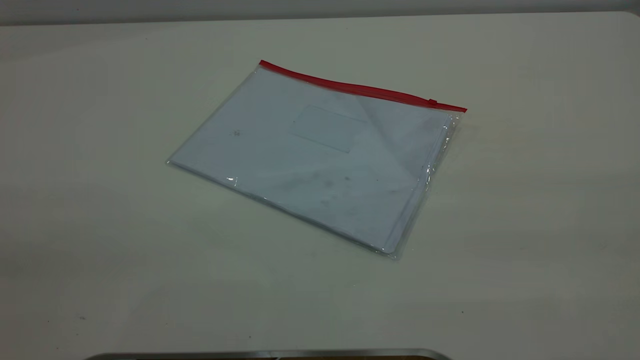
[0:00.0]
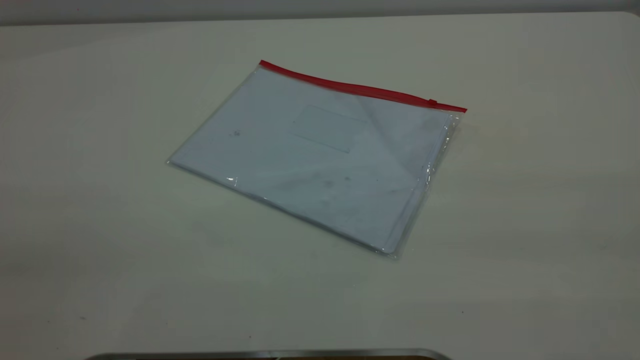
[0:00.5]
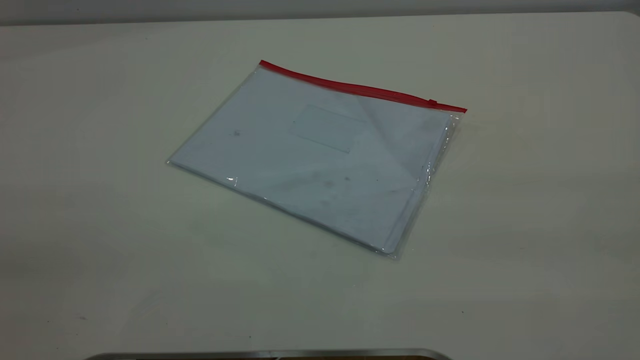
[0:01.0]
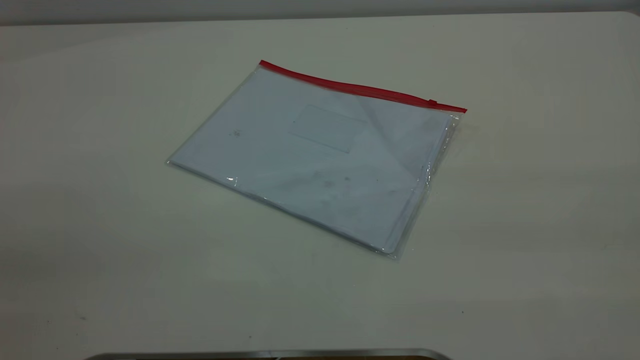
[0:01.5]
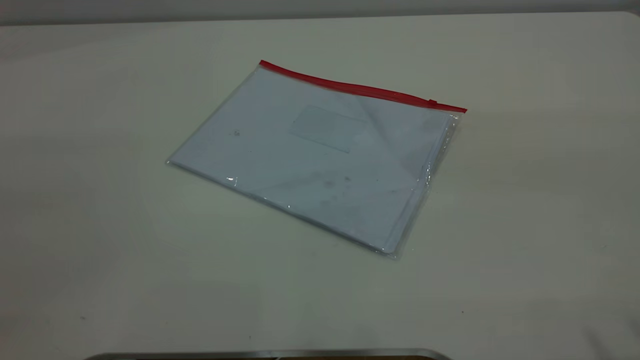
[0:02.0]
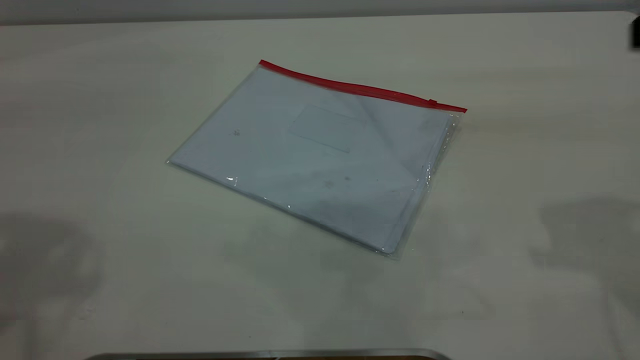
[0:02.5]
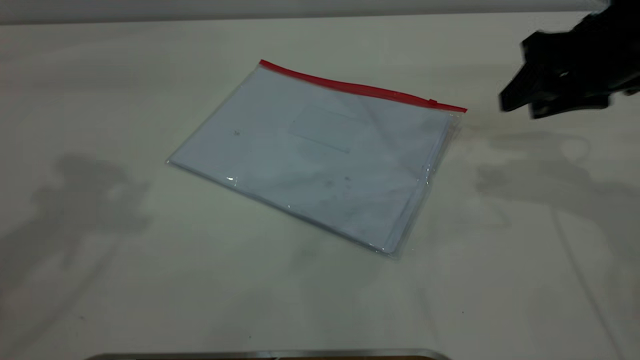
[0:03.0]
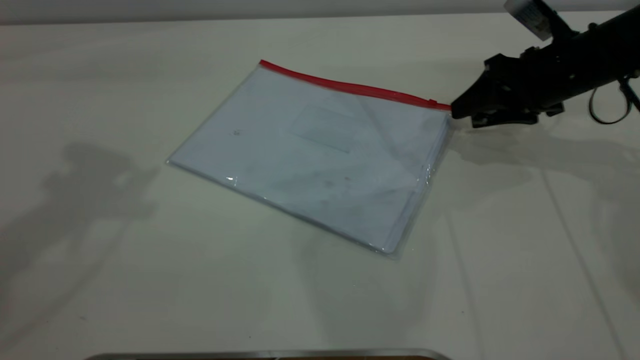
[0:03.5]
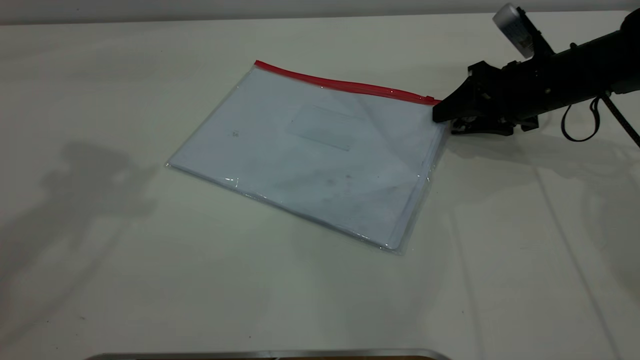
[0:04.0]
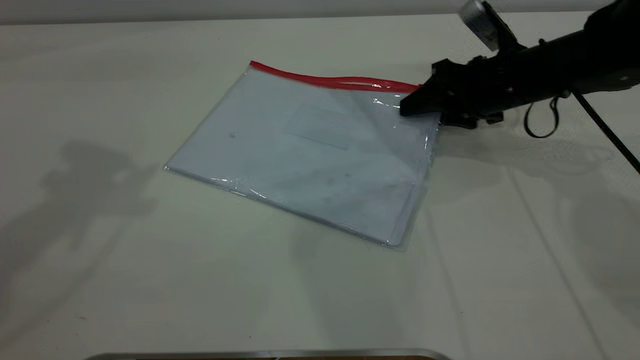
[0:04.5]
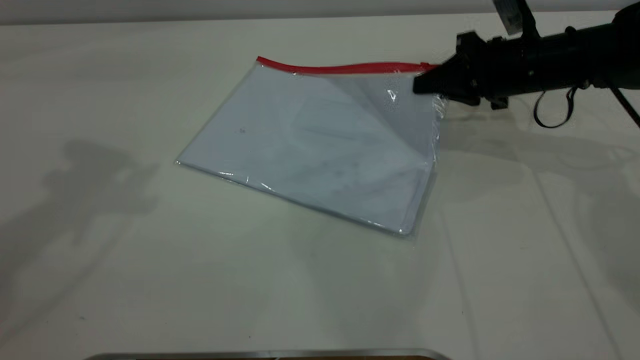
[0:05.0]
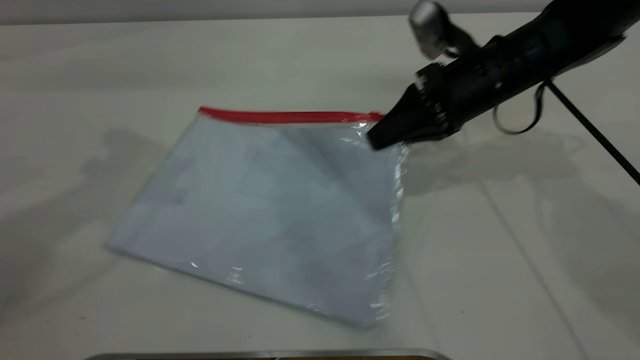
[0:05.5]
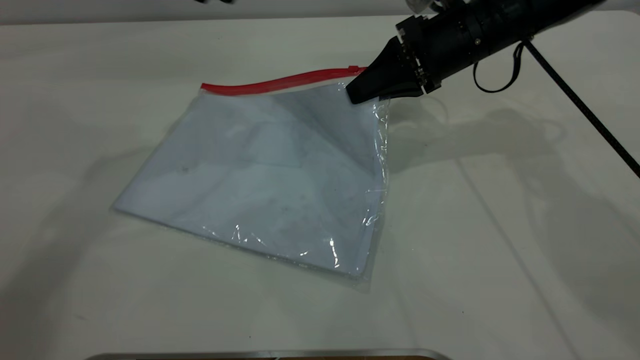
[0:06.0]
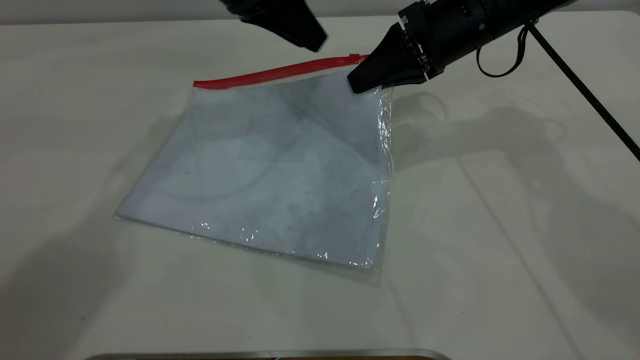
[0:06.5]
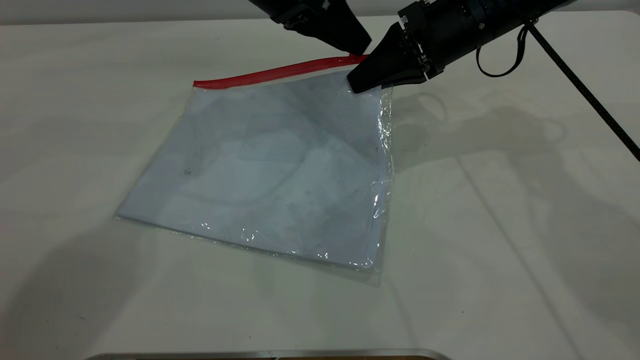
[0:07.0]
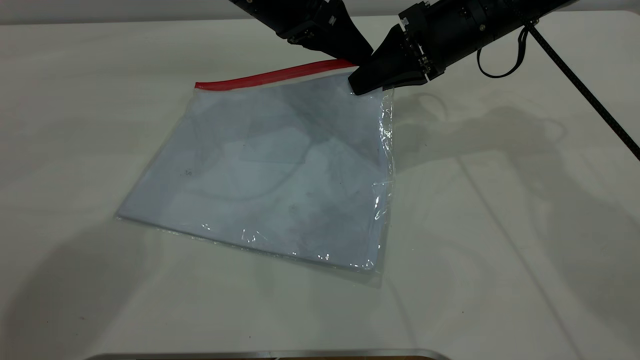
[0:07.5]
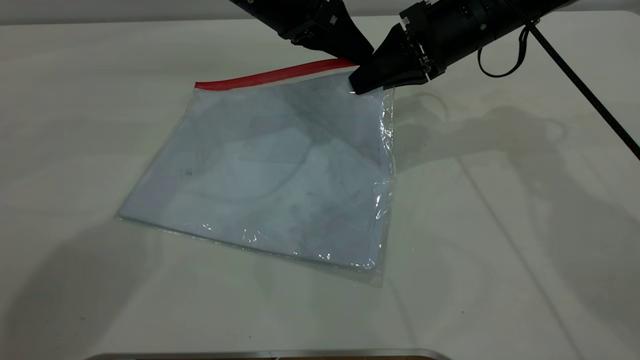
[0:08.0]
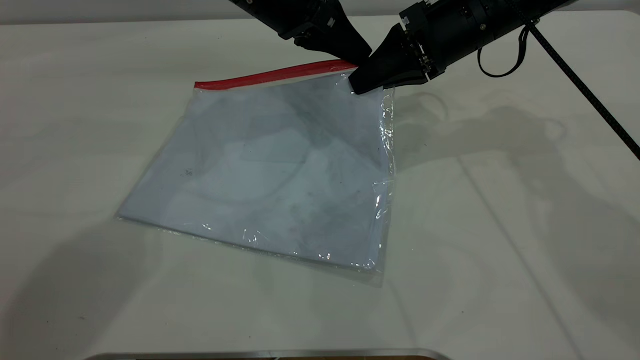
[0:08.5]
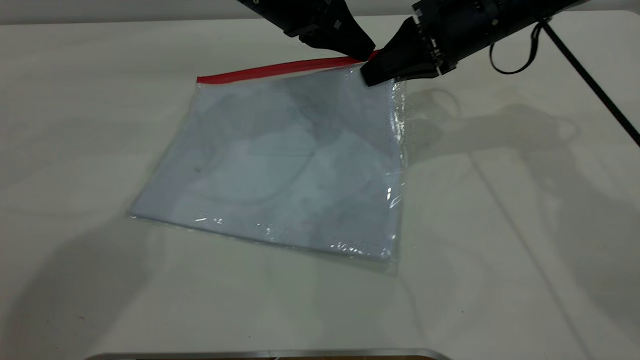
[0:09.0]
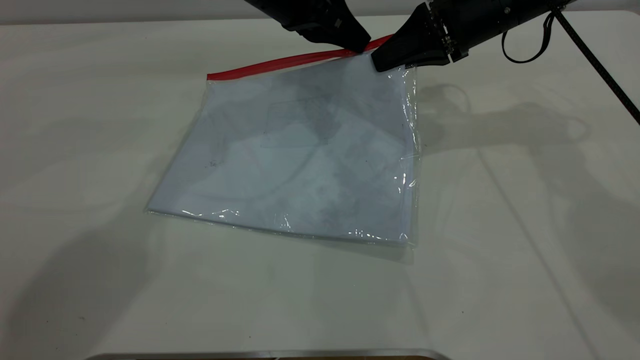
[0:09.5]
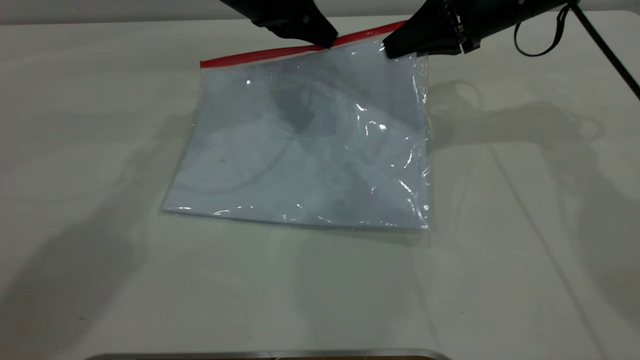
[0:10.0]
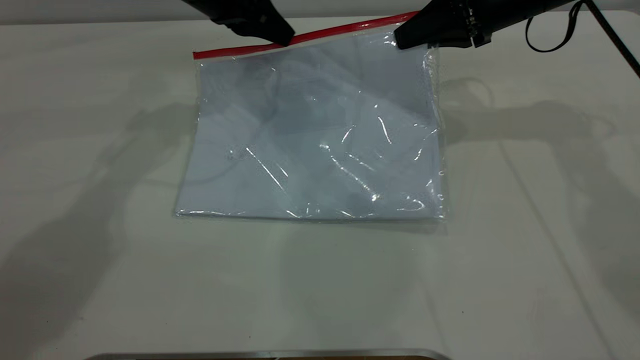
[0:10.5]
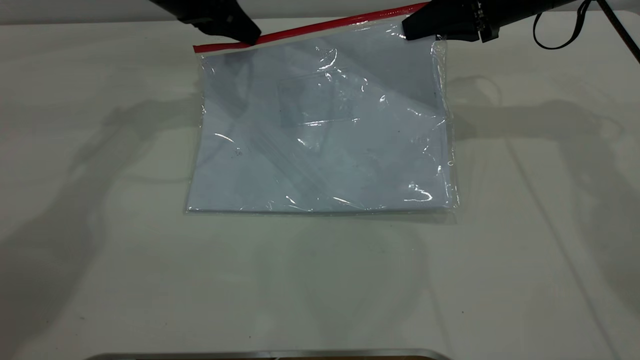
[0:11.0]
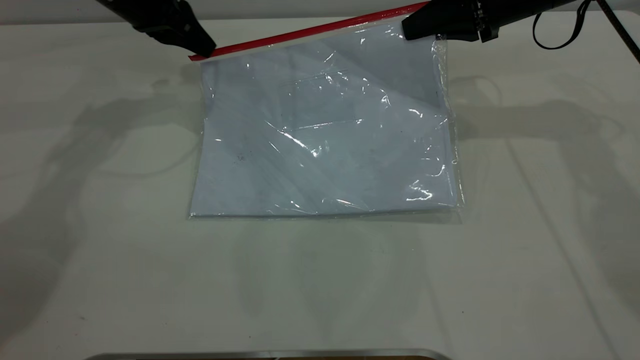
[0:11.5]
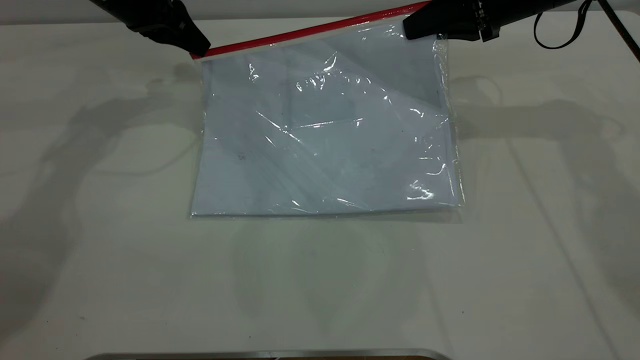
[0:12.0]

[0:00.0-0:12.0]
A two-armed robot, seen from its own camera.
Step, 0:00.0 to 0:06.0: Pick up the transparent plastic bag with the right gripper.
0:02.0 to 0:04.0: The right gripper heads forward and downward, covering about 50 cm.
0:04.0 to 0:06.0: The right gripper shifts roughly 10 cm to the left and upward, and closes its fingers, while the left gripper is displaced downward, to the right and forward by roughly 20 cm.
0:06.0 to 0:08.0: The left gripper is displaced to the right and downward by about 15 cm, and closes up.
0:08.0 to 0:10.0: The left gripper closes; the right gripper moves about 5 cm.
0:10.0 to 0:12.0: The left gripper is displaced to the left by roughly 15 cm.

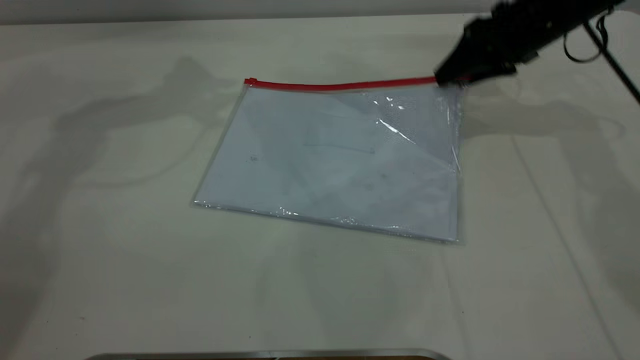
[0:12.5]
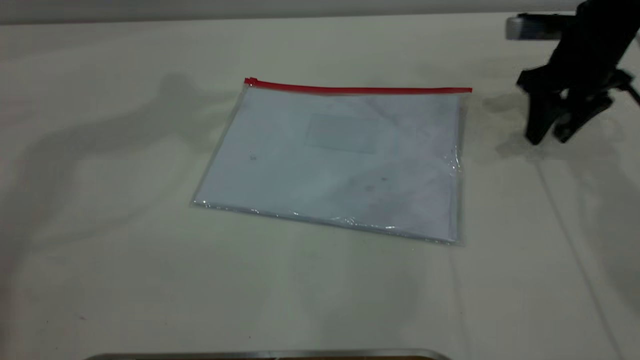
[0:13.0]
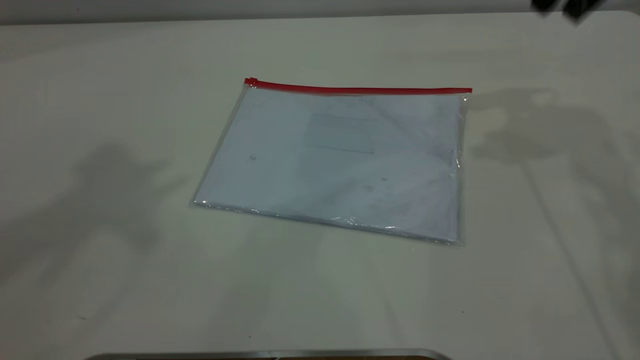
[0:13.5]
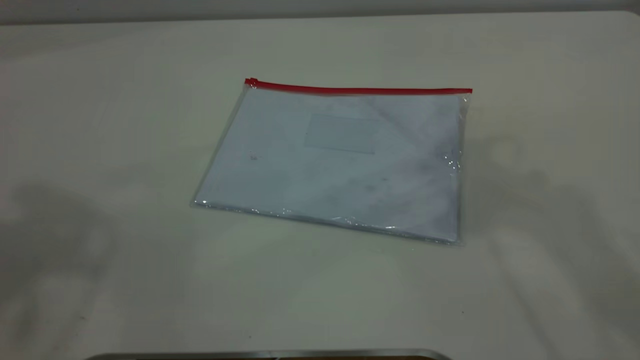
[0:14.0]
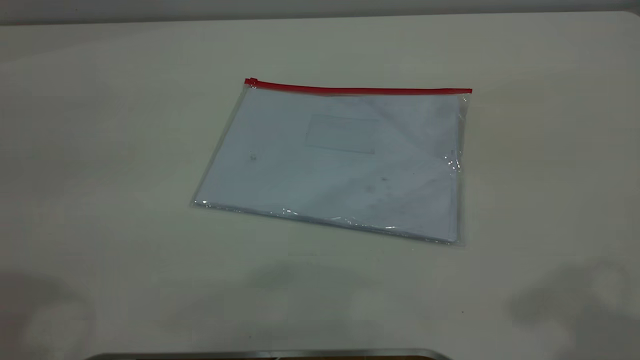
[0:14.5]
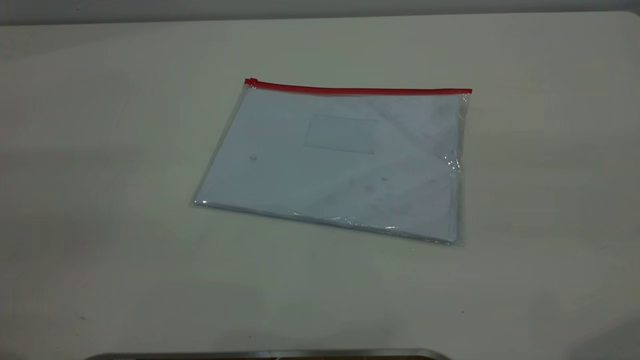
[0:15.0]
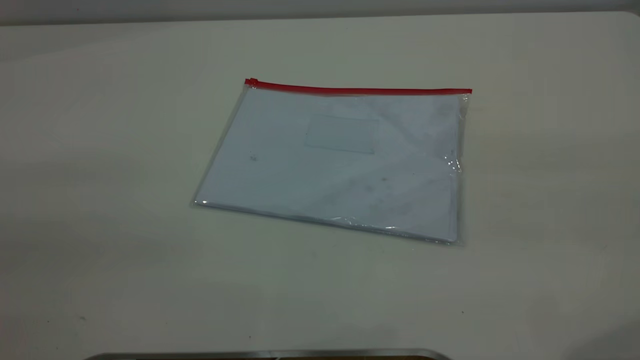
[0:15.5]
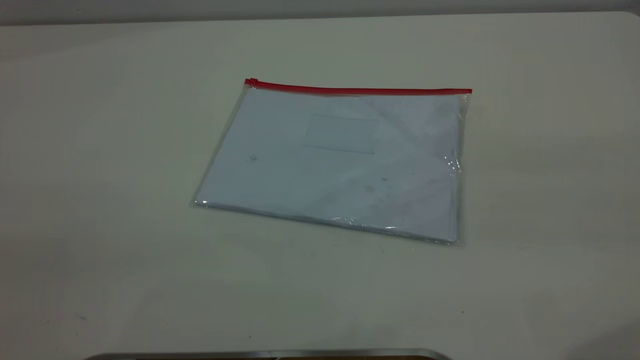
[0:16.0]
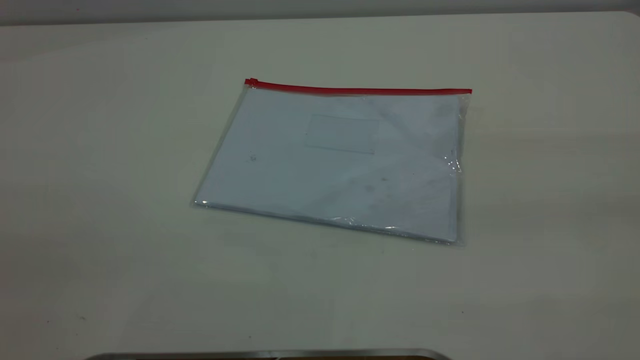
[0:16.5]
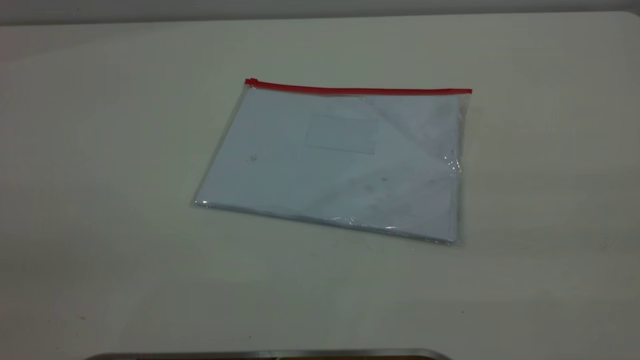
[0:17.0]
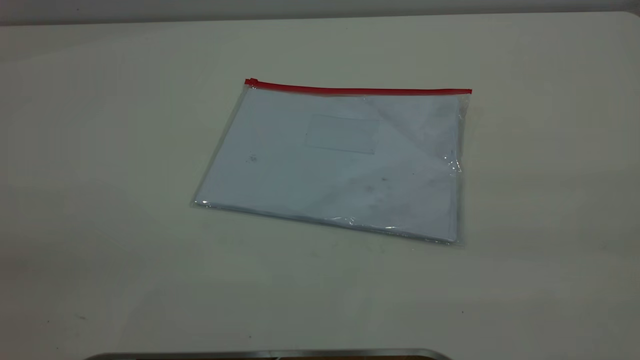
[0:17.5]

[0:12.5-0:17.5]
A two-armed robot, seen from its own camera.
0:12.5 to 0:15.0: The left gripper travels backward by roughly 40 cm, while the right gripper moves backward and upward, roughly 40 cm.

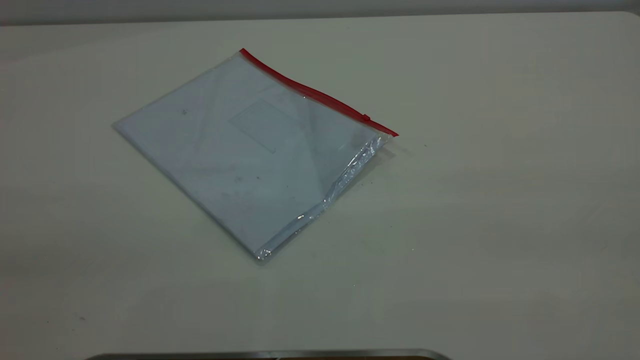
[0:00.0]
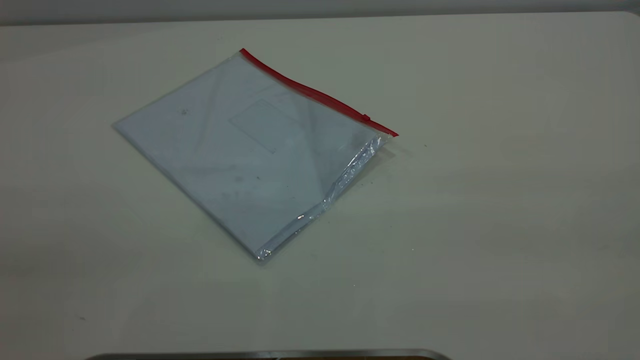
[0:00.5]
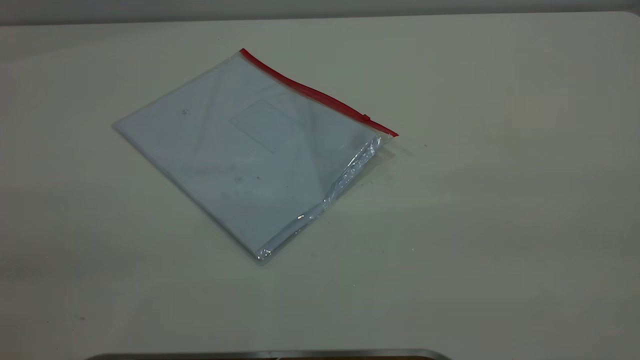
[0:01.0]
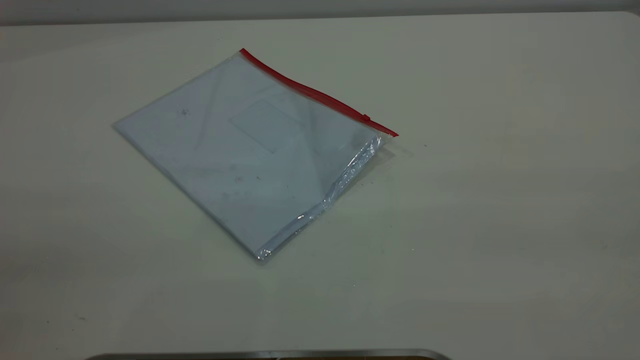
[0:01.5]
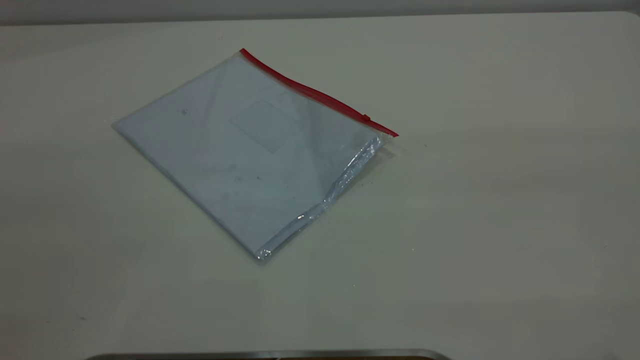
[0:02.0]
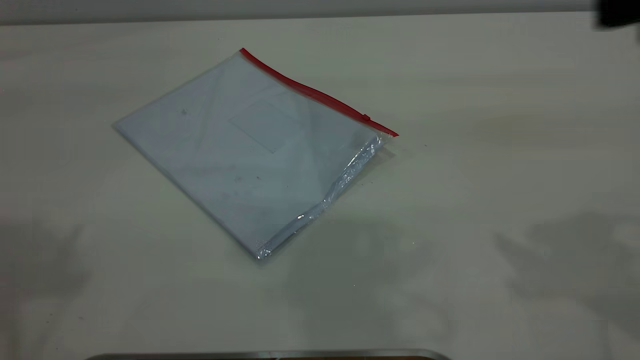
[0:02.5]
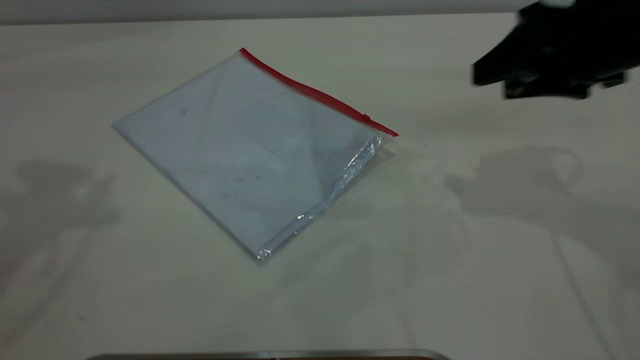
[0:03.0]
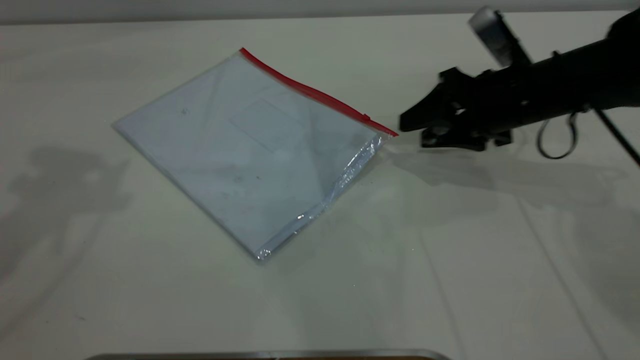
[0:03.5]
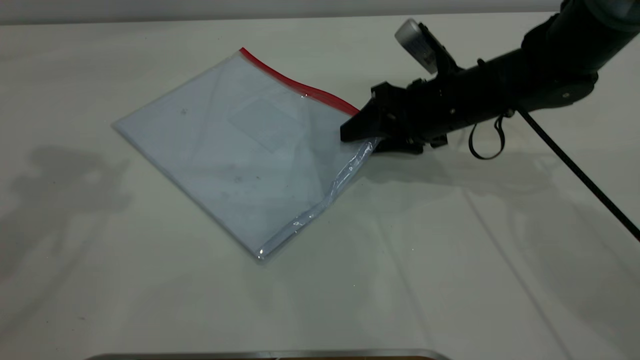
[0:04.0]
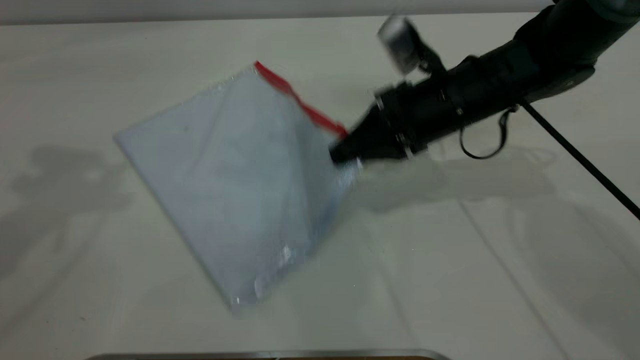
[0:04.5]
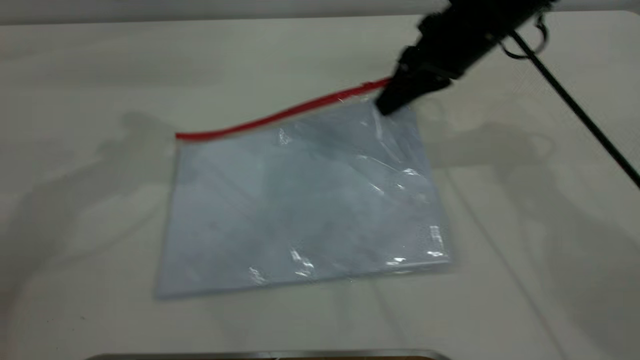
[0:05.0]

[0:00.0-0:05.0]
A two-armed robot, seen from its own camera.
0:02.5 to 0:05.0: The right gripper travels forward, downward and to the left by some 25 cm, and closes up; the left gripper travels forward, downward and to the right by roughly 25 cm.
